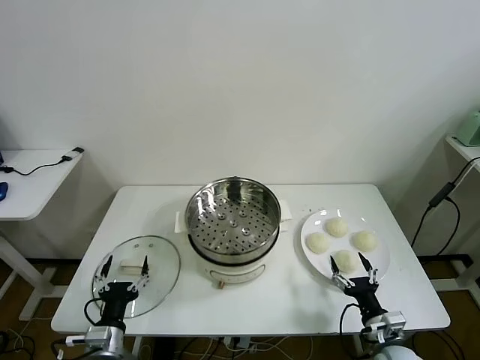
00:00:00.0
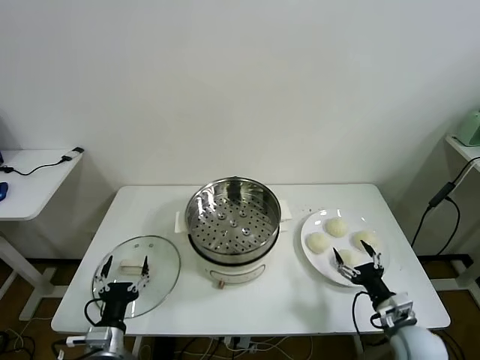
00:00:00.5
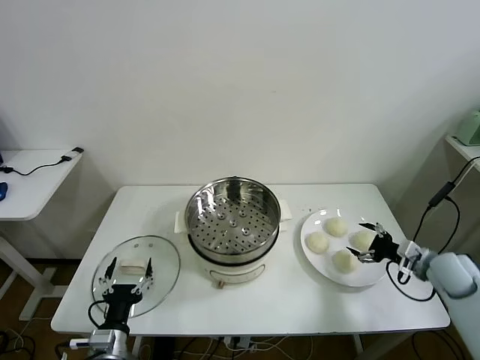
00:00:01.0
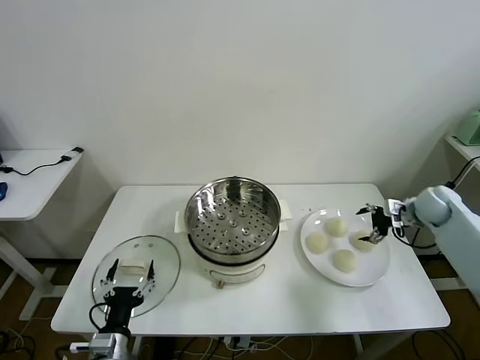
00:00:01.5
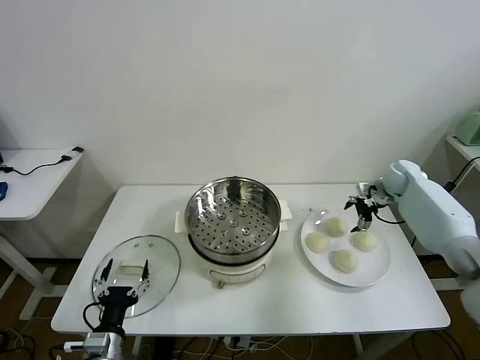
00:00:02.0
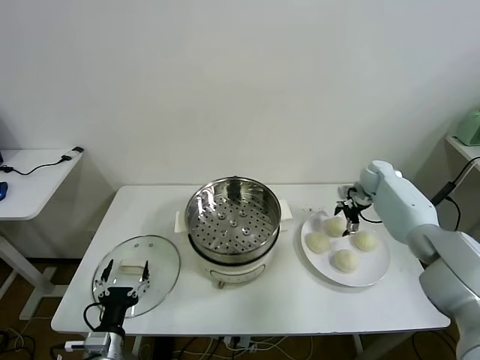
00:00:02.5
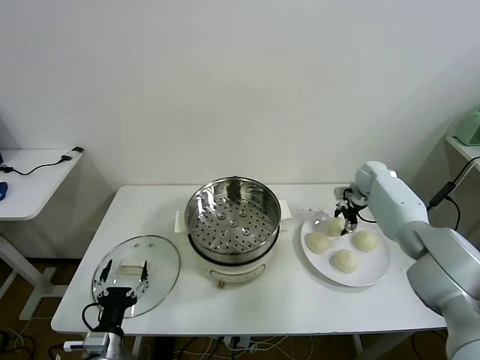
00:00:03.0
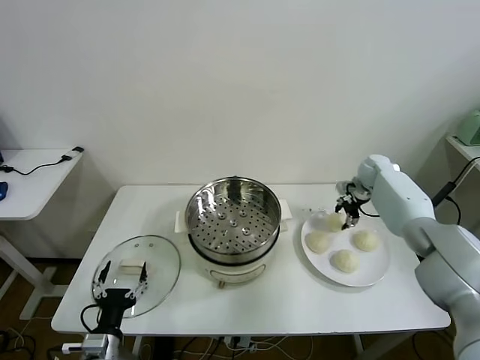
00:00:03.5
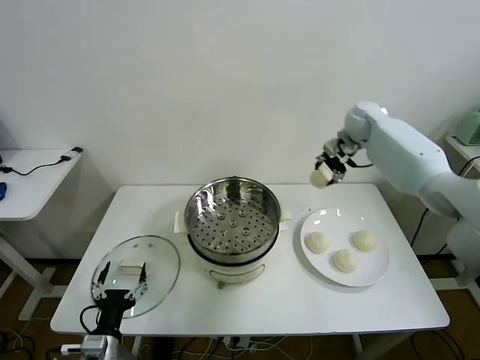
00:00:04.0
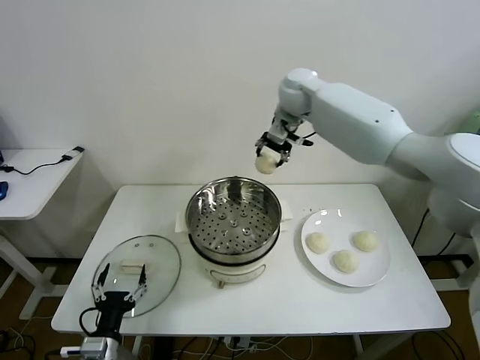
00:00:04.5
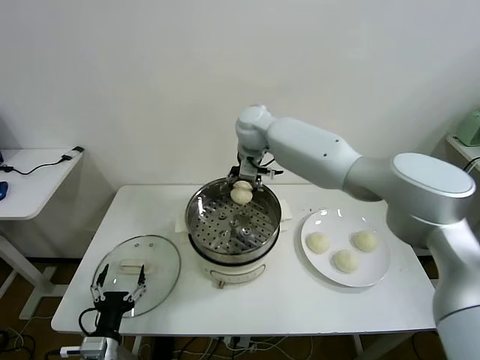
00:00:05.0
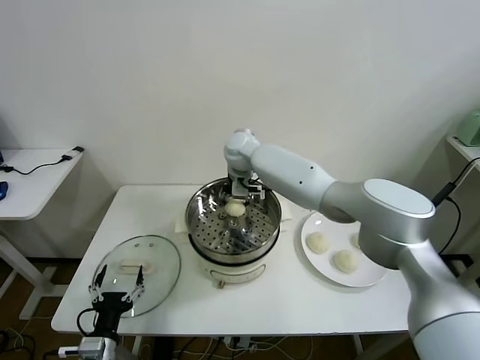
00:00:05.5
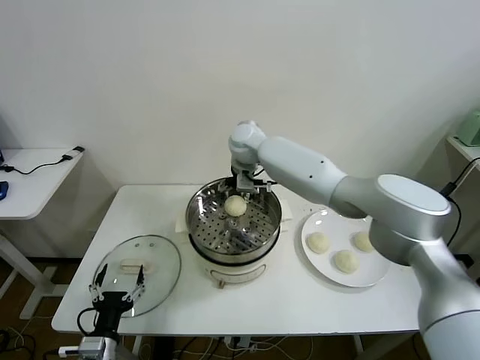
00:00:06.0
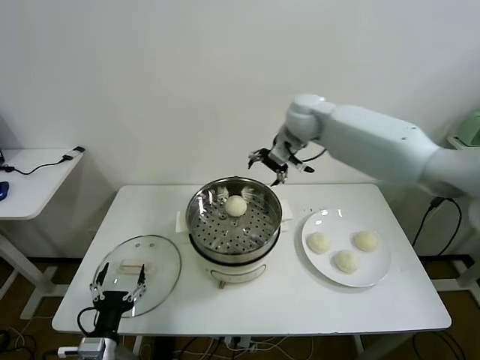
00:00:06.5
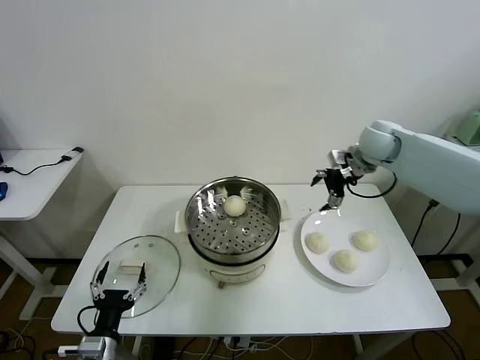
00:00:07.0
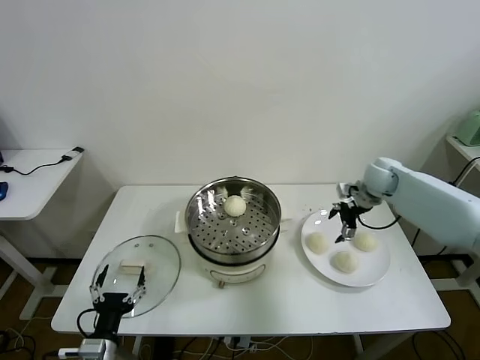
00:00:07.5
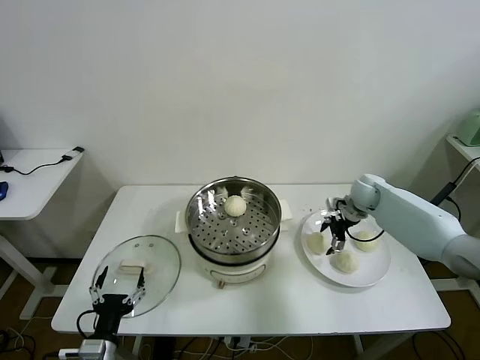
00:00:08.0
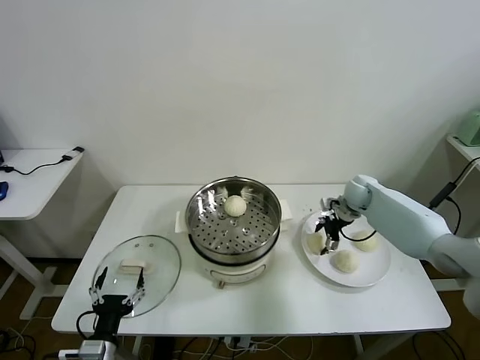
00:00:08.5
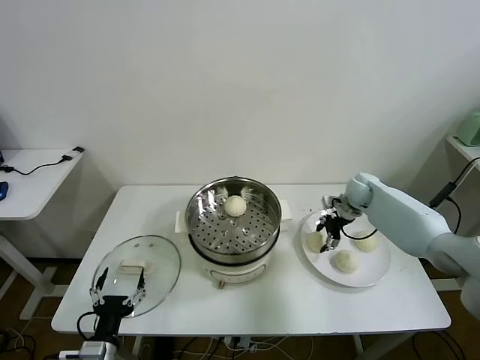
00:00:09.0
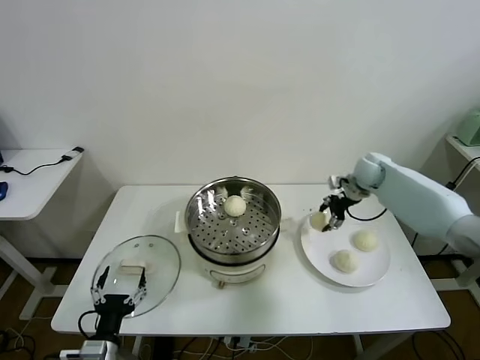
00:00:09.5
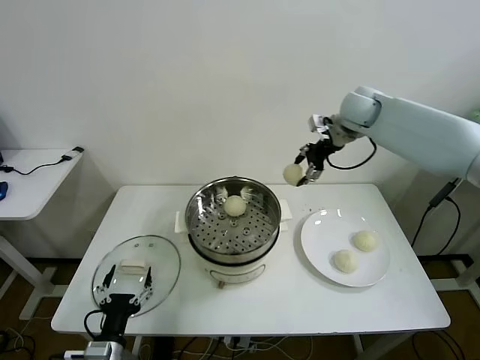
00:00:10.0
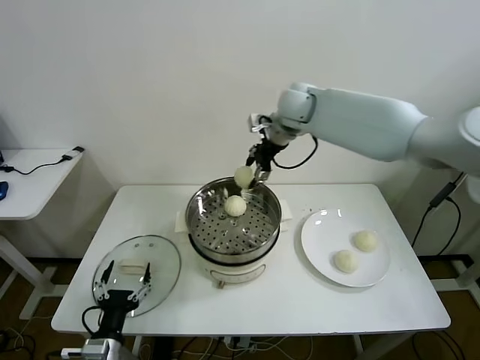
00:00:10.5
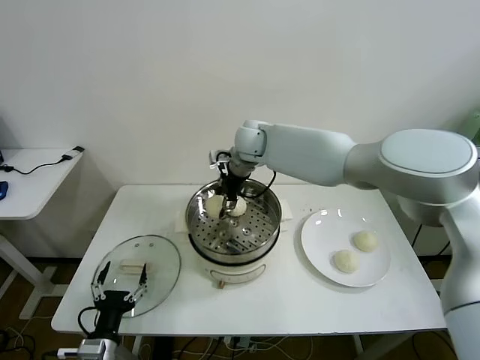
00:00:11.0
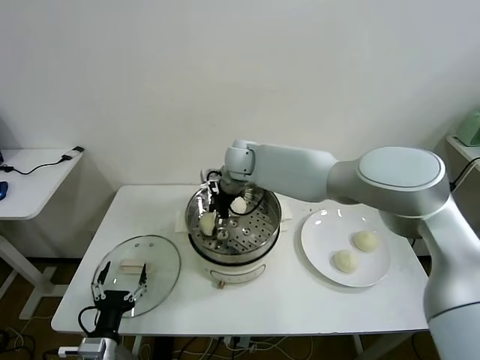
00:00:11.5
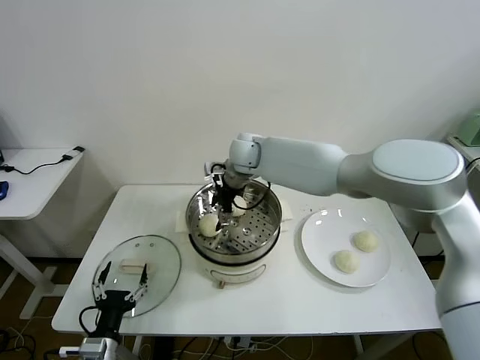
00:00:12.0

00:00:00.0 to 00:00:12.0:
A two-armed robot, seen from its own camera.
Task of the whole recording: take steamed baozi put them in steamer then cover it.
Step, 00:00:00.0 to 00:00:03.0: Grasp the baozi in the plate with right gripper.
Step, 00:00:03.5 to 00:00:05.5: Place the baozi on the steamer with right gripper.
Step, 00:00:06.0 to 00:00:08.5: Grasp the baozi in the plate with right gripper.
Step, 00:00:09.5 to 00:00:11.5: Place the baozi on the steamer with right gripper.
00:00:02.0 to 00:00:04.0: The right gripper travels upward and to the left by some 25 cm, and closes.
00:00:04.0 to 00:00:06.0: The right gripper heads to the left, covering roughly 25 cm, and opens.
00:00:06.0 to 00:00:08.0: The right gripper goes some 35 cm to the right and downward.
00:00:08.0 to 00:00:10.0: The right gripper is displaced upward by approximately 25 cm, and closes up.
00:00:10.0 to 00:00:12.0: The right gripper shifts some 25 cm to the left and downward, and opens its fingers.

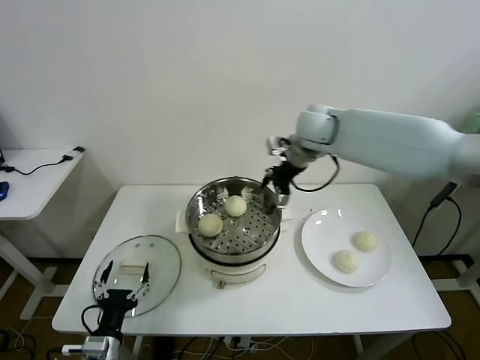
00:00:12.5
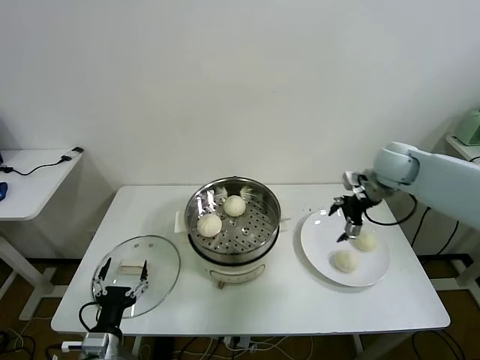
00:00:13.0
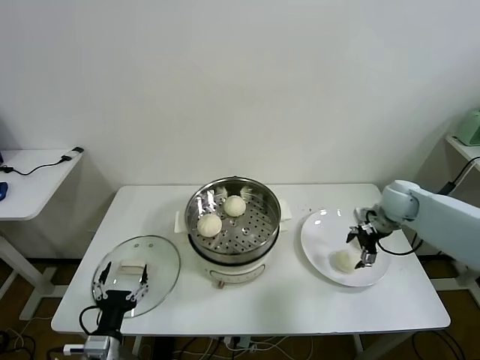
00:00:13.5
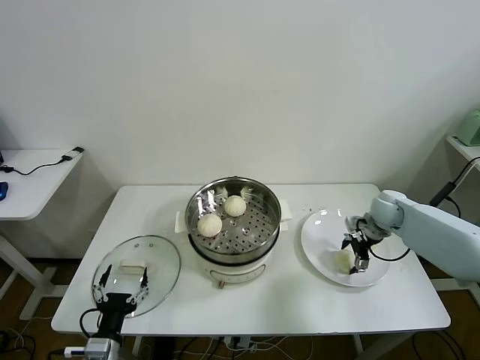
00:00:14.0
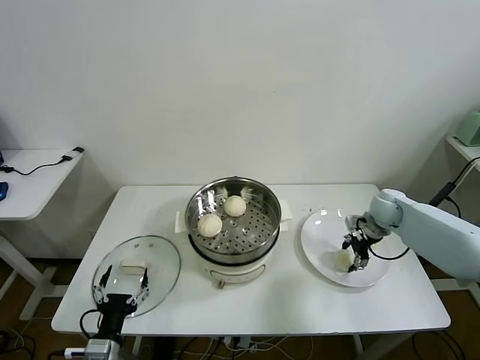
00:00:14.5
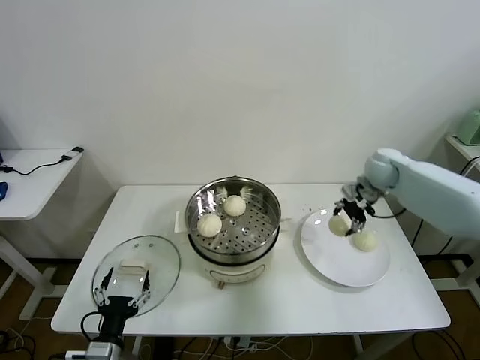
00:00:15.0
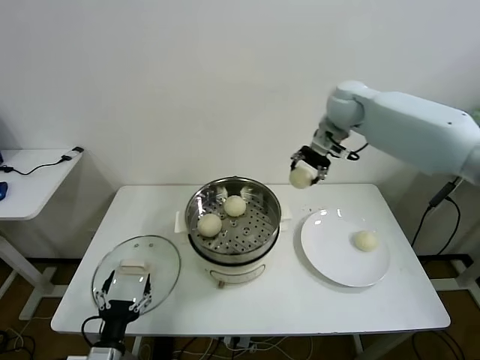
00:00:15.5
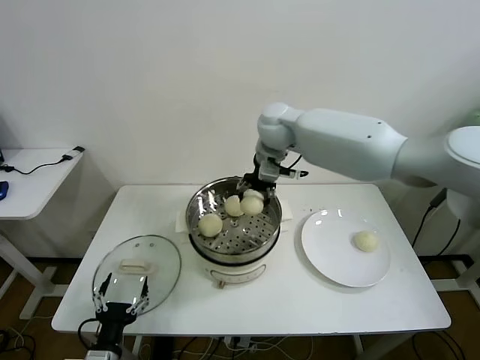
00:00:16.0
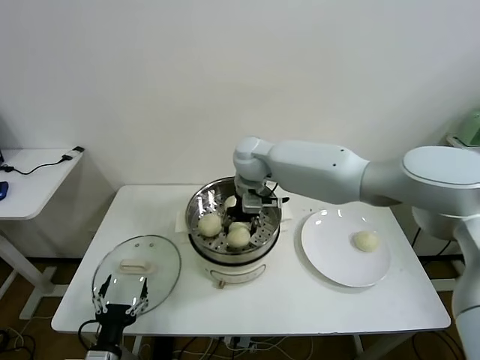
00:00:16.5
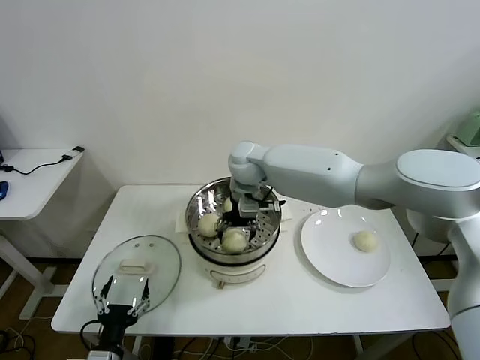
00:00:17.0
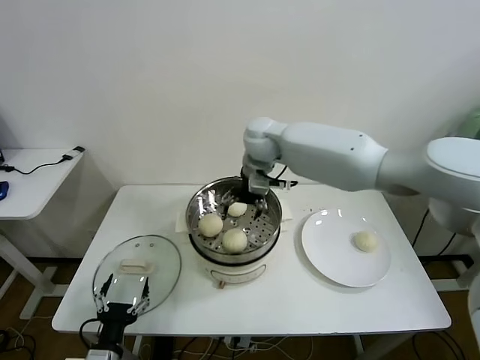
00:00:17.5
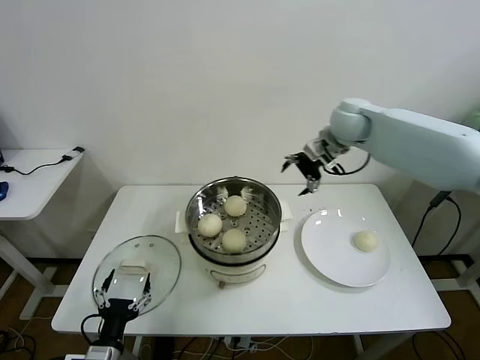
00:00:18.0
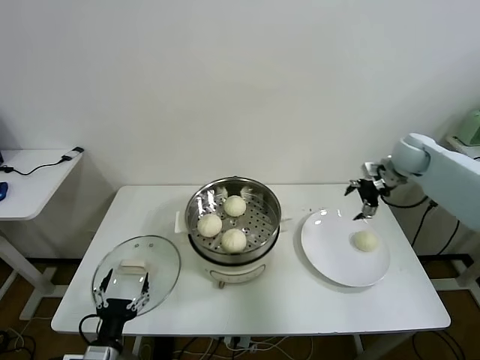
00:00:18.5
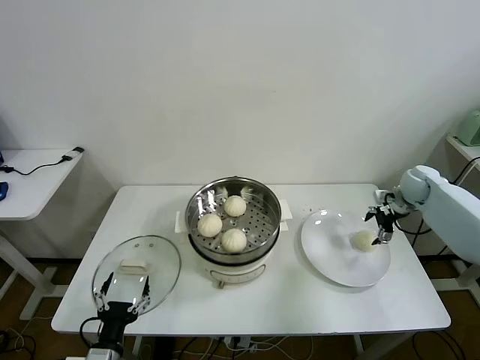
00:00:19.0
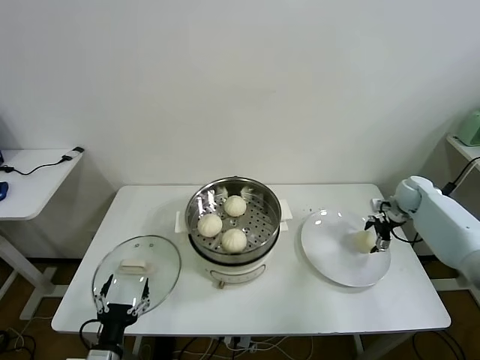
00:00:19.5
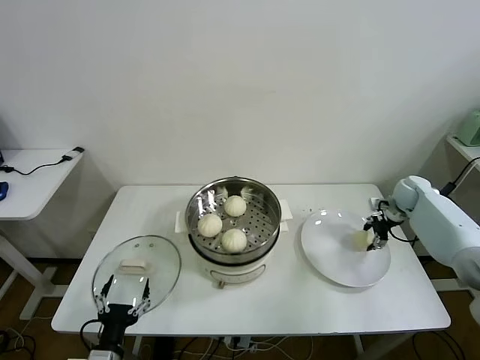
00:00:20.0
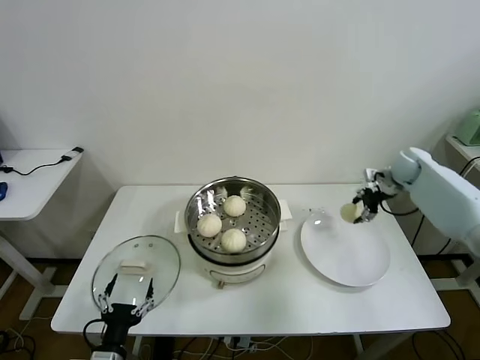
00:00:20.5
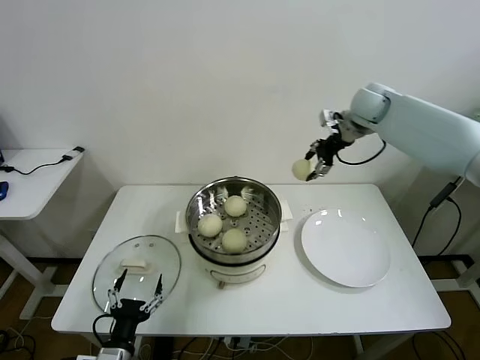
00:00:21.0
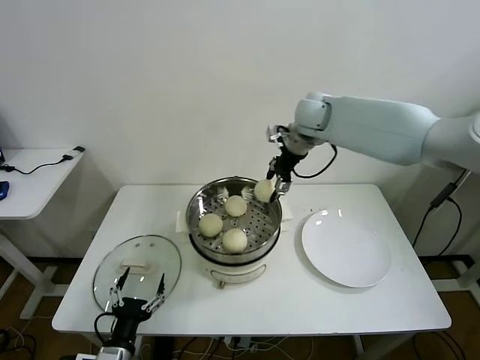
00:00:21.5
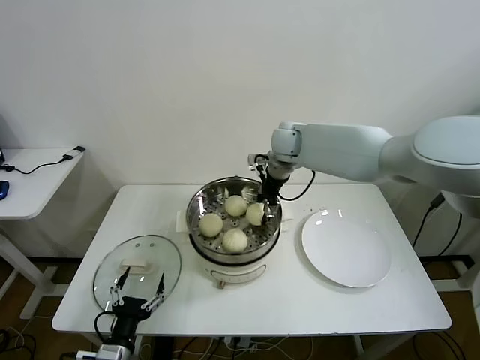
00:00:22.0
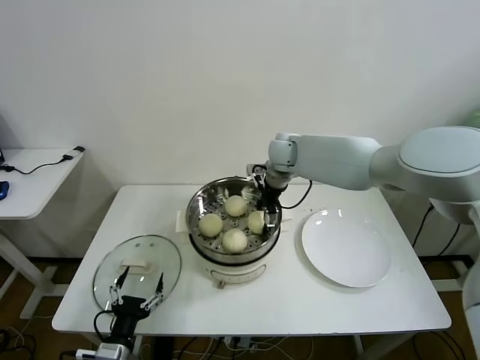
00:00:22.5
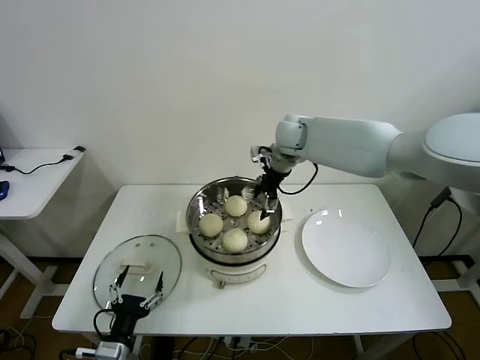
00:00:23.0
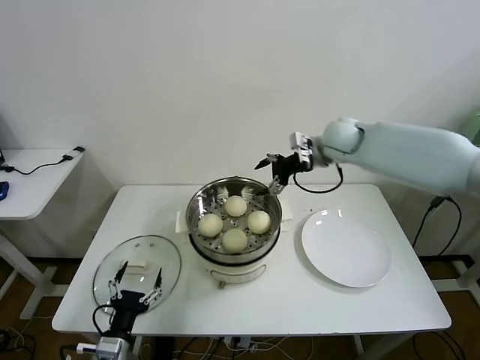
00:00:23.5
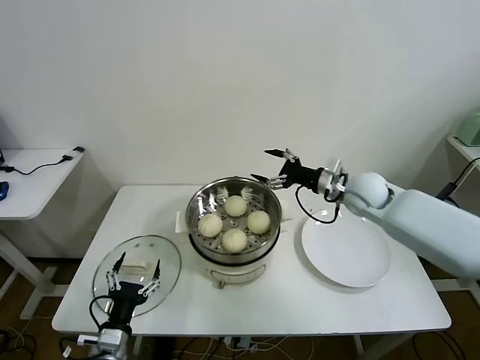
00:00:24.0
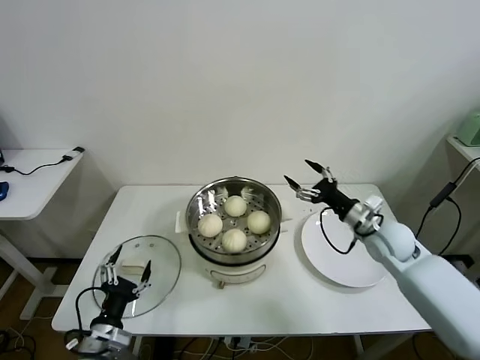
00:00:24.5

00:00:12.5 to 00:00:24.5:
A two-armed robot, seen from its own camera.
Task of the whole recording: take steamed baozi put them in steamer then cover it.
Step, 00:00:12.5 to 00:00:14.0: Grasp the baozi in the plate with right gripper.
Step, 00:00:14.5 to 00:00:17.0: Place the baozi on the steamer with right gripper.
Step, 00:00:17.5 to 00:00:20.0: Grasp the baozi in the plate with right gripper.
Step, 00:00:20.5 to 00:00:22.5: Place the baozi on the steamer with right gripper.
00:00:12.5 to 00:00:14.5: The right gripper moves downward and to the right, approximately 30 cm, and closes its fingers.
00:00:14.5 to 00:00:16.5: The right gripper goes roughly 40 cm to the left and upward.
00:00:16.5 to 00:00:18.5: The right gripper travels to the right by roughly 40 cm, and opens its fingers.
00:00:18.5 to 00:00:20.5: The right gripper is displaced downward by about 5 cm, and closes its fingers.
00:00:20.5 to 00:00:22.5: The right gripper shifts approximately 35 cm to the left, and opens its fingers.
00:00:22.5 to 00:00:24.5: The right gripper heads to the right, backward and downward, covering about 30 cm.

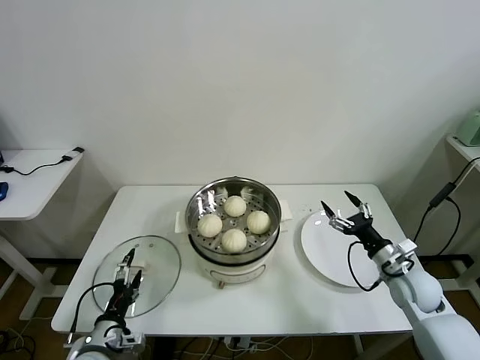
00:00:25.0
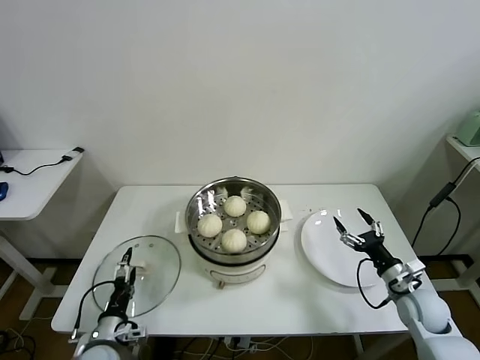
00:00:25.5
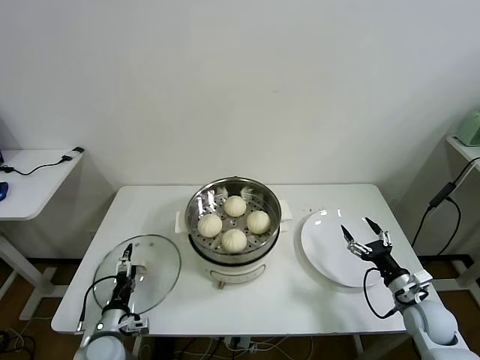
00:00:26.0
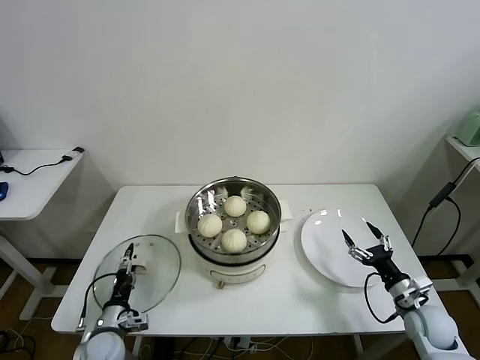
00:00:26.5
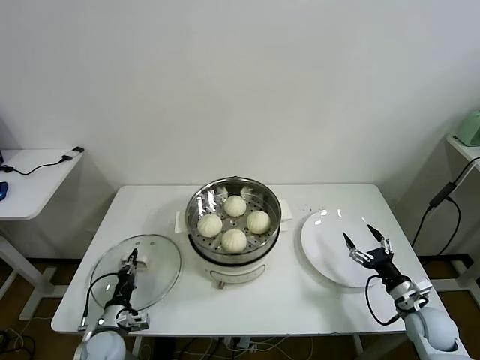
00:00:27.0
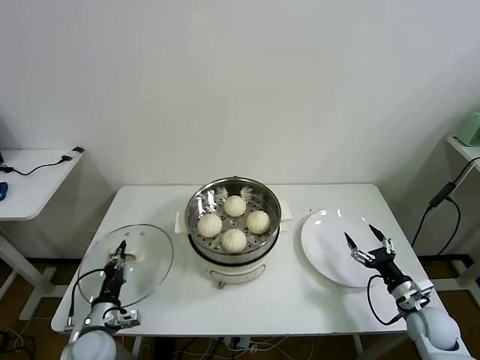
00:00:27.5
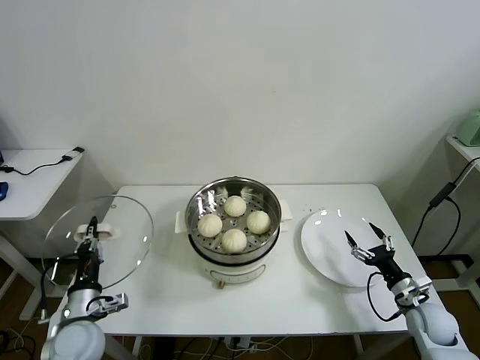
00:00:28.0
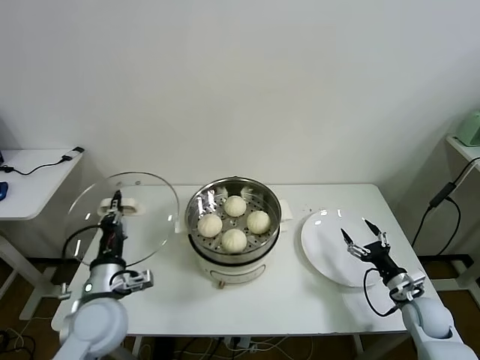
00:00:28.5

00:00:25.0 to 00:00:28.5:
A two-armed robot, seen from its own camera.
Task of the whole recording: take steamed baozi put them in steamer then cover it.
00:00:25.0 to 00:00:27.0: The right gripper shifts some 10 cm downward and backward; the left gripper is displaced downward and forward by about 10 cm, and closes.
00:00:27.0 to 00:00:28.5: The left gripper goes approximately 20 cm upward.
